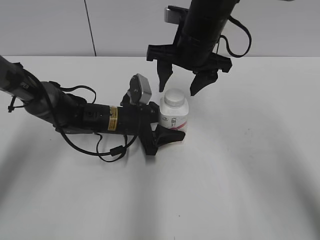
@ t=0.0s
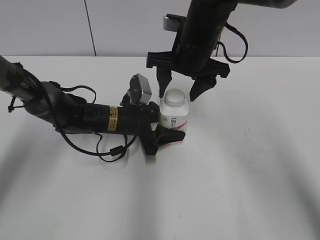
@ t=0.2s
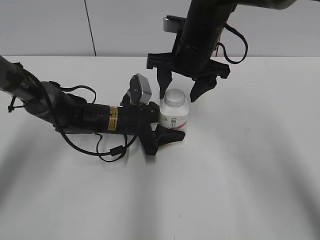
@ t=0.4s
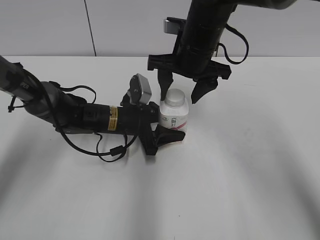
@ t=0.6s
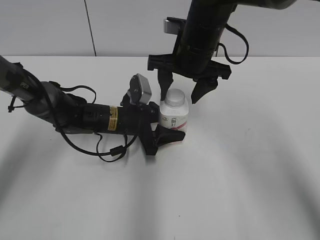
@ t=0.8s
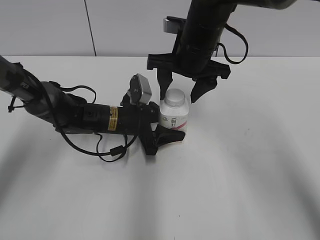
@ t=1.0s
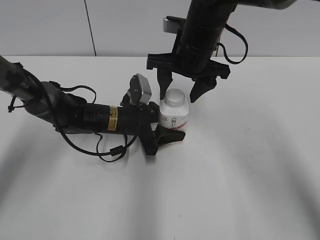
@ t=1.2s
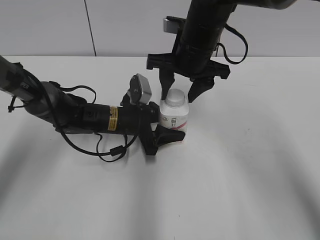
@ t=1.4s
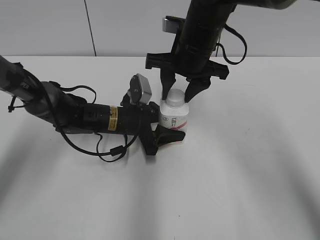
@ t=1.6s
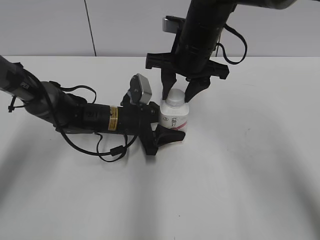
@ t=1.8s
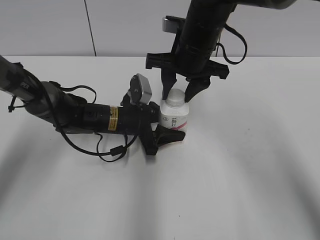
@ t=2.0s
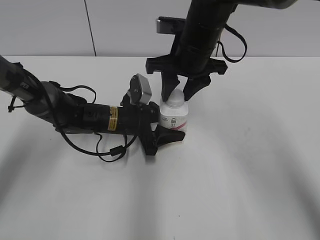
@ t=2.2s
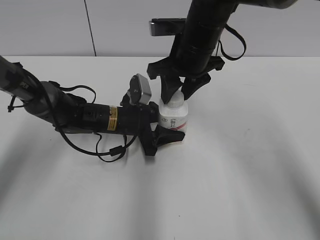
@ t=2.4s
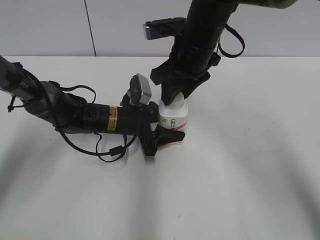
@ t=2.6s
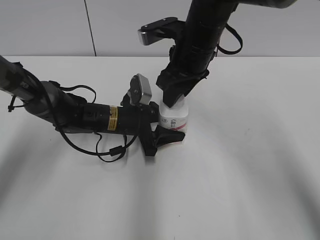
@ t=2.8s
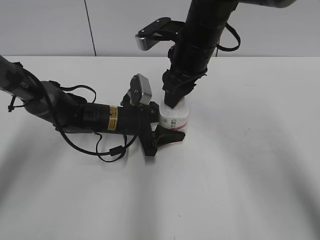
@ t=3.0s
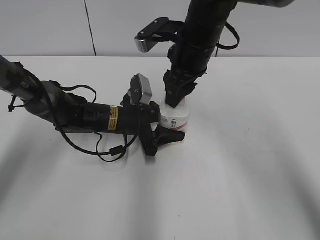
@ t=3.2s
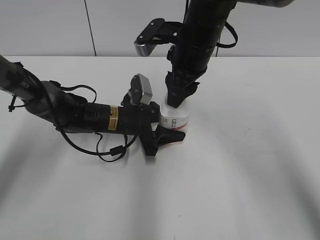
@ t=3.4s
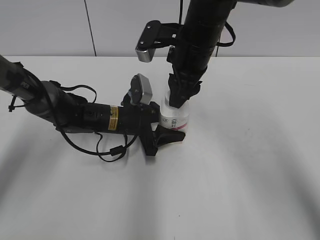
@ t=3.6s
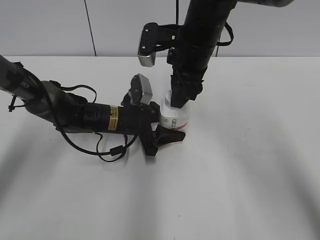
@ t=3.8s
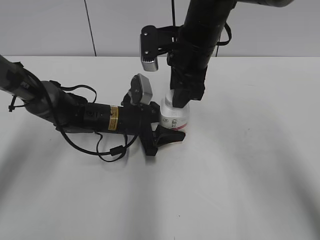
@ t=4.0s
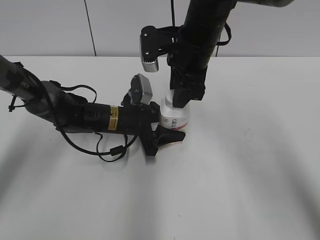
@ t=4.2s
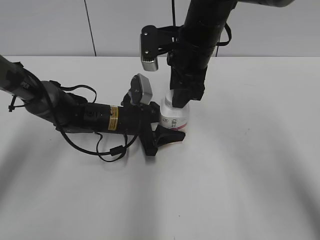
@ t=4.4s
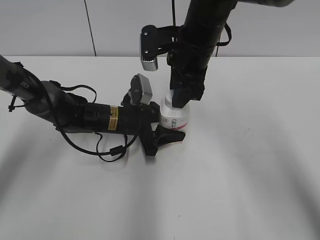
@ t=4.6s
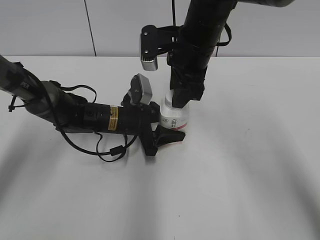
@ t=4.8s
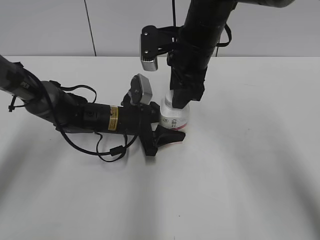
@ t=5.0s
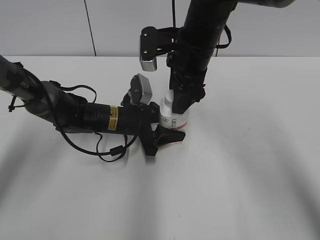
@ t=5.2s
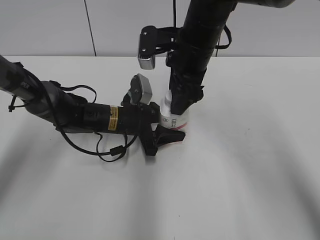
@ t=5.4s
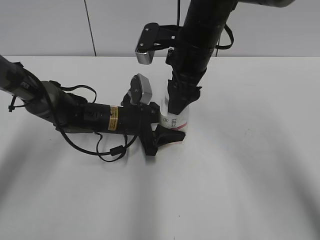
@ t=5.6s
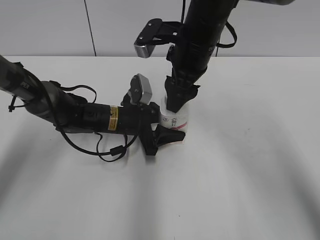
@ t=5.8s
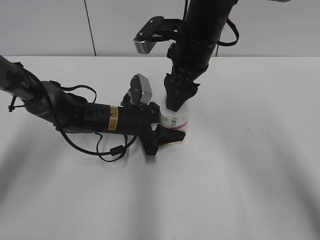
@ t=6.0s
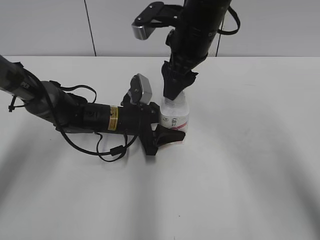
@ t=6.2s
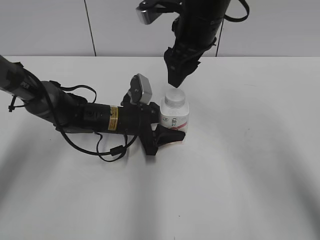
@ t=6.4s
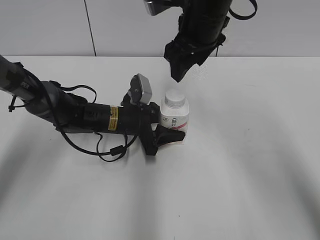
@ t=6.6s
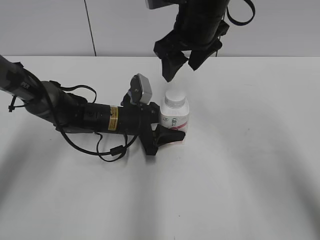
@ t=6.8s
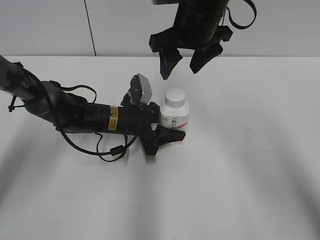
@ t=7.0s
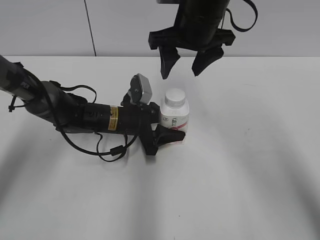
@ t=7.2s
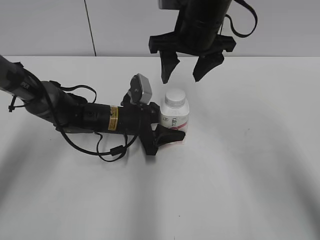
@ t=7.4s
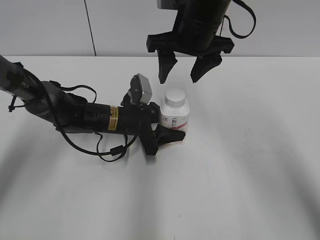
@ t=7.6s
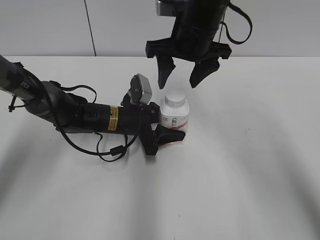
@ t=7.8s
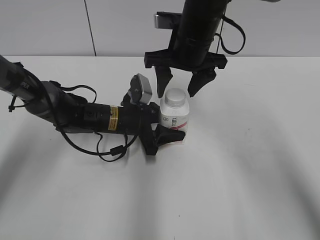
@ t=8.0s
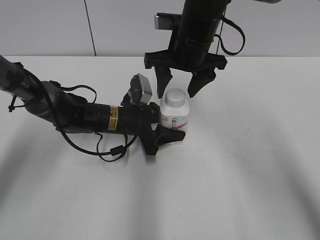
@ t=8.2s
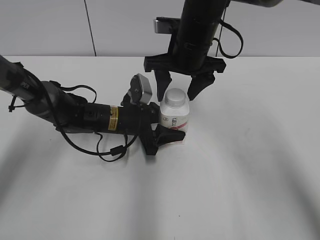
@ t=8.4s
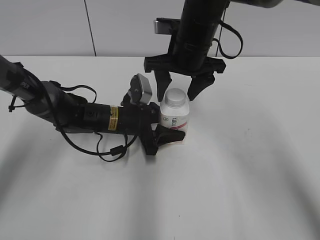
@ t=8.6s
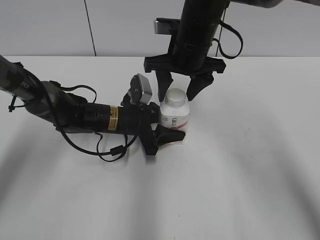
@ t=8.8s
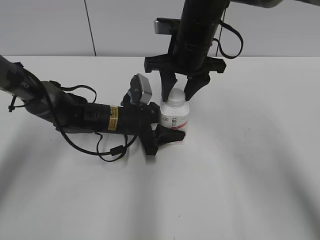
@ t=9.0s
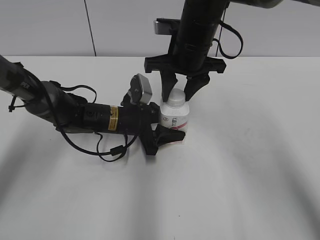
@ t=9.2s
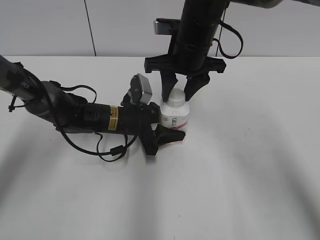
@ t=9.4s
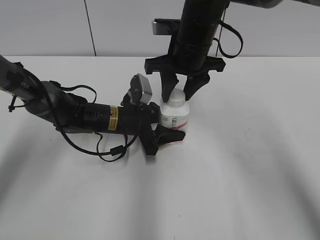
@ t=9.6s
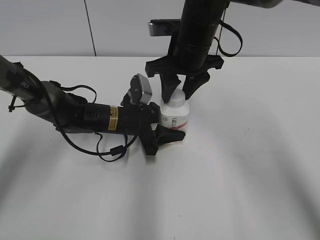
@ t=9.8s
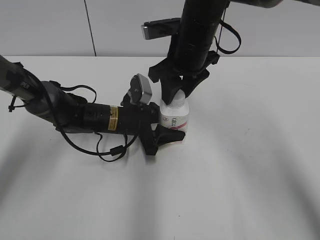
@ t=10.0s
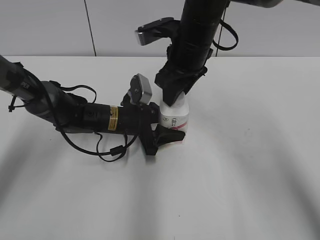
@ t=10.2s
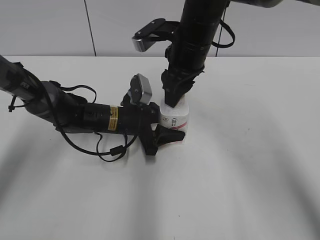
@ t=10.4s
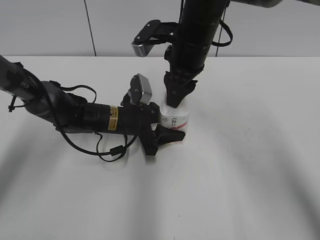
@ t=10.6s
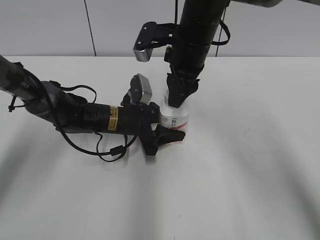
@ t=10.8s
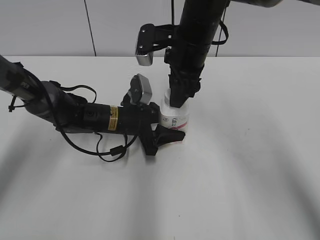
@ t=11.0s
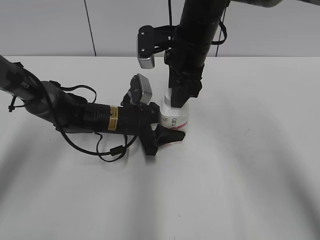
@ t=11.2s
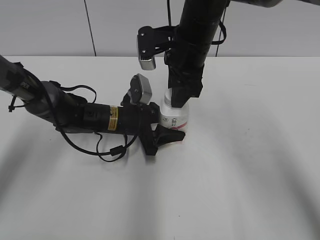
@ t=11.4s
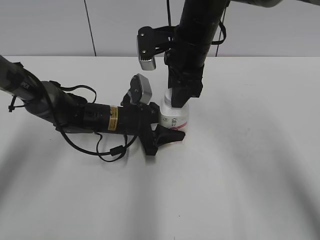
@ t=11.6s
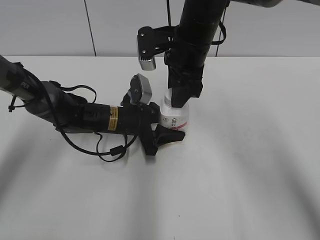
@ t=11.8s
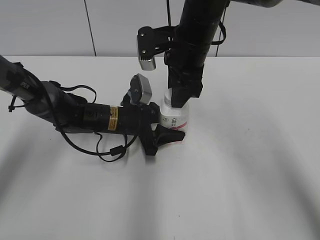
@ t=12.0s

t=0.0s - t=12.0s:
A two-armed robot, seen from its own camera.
t=0.0s - t=1.6s: The right gripper closes its fingers.
t=4.4s - t=6.0s: The right gripper opens its fingers.
t=7.6s - t=9.0s: The right gripper closes.

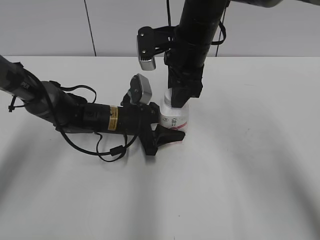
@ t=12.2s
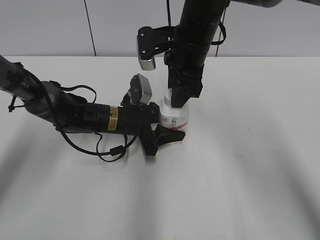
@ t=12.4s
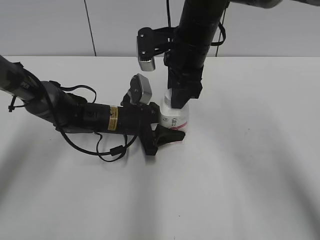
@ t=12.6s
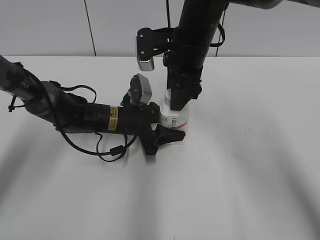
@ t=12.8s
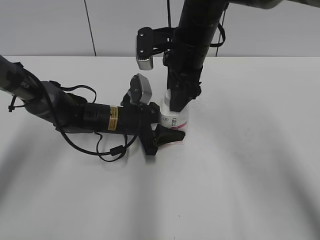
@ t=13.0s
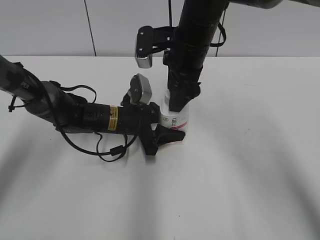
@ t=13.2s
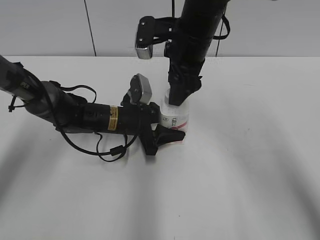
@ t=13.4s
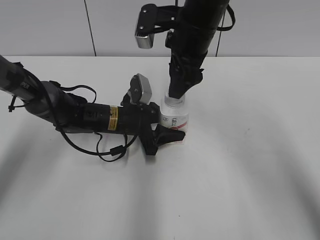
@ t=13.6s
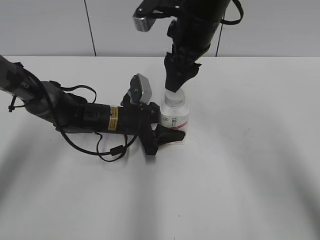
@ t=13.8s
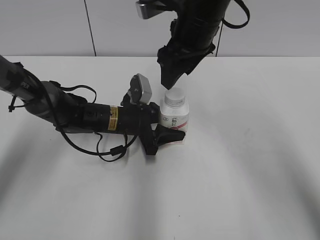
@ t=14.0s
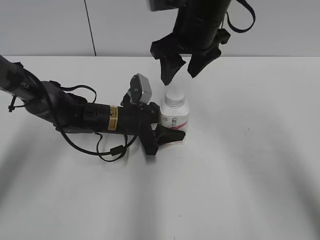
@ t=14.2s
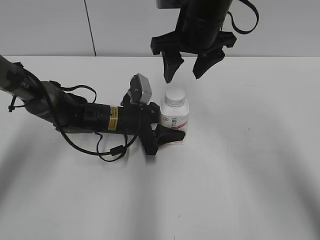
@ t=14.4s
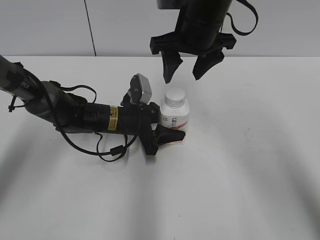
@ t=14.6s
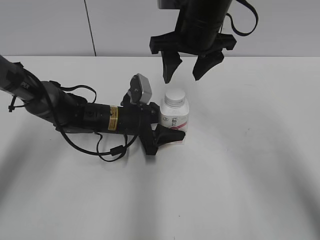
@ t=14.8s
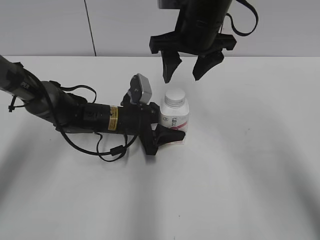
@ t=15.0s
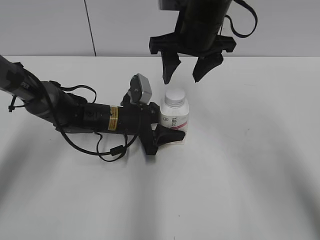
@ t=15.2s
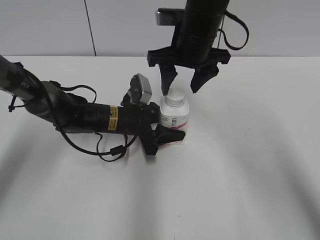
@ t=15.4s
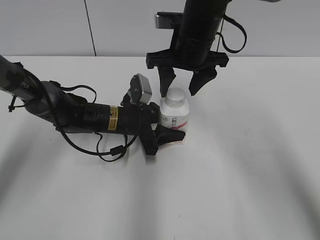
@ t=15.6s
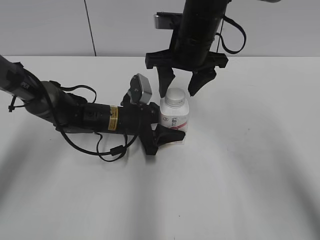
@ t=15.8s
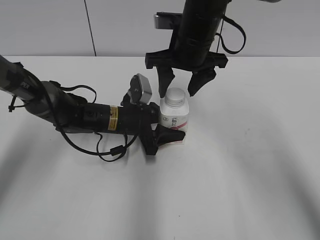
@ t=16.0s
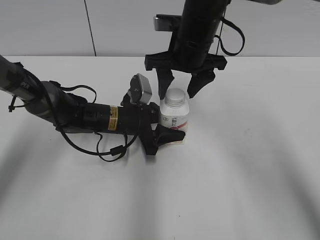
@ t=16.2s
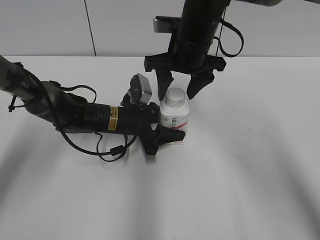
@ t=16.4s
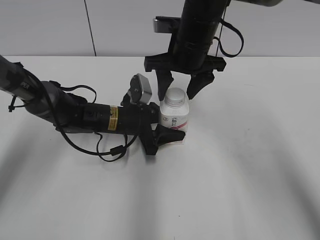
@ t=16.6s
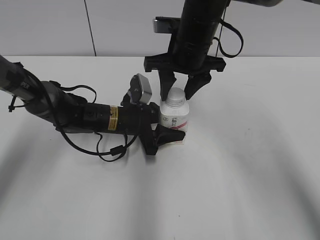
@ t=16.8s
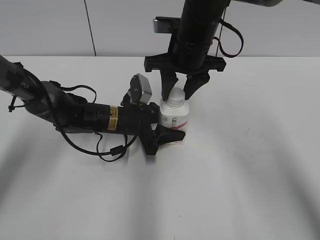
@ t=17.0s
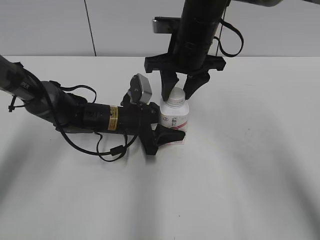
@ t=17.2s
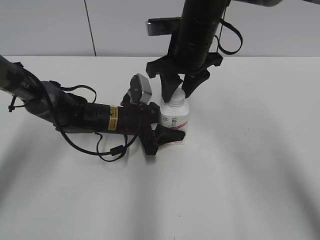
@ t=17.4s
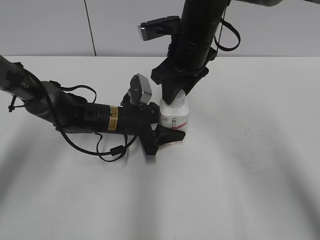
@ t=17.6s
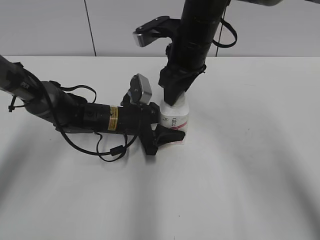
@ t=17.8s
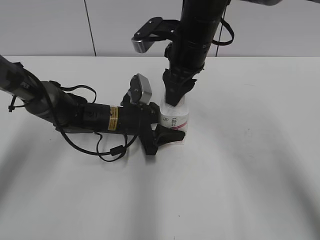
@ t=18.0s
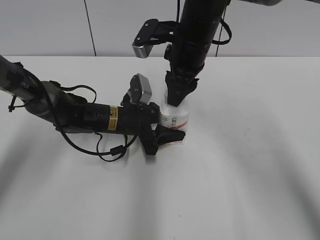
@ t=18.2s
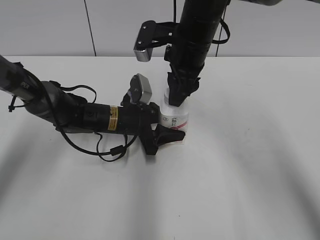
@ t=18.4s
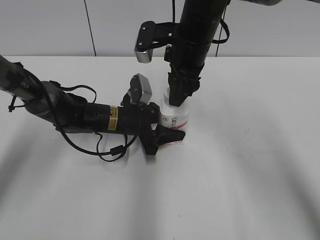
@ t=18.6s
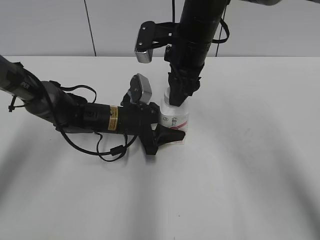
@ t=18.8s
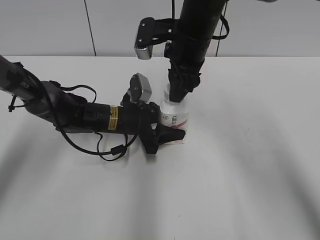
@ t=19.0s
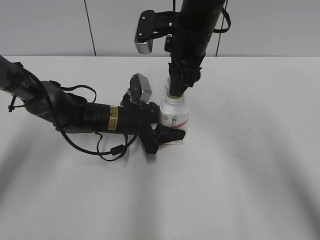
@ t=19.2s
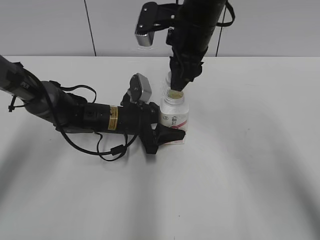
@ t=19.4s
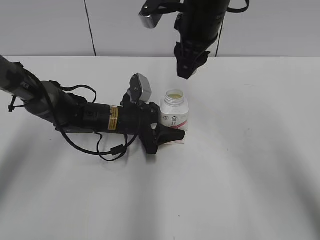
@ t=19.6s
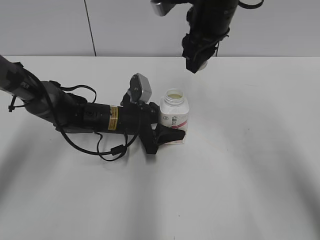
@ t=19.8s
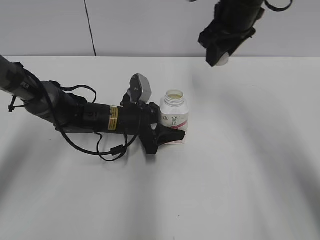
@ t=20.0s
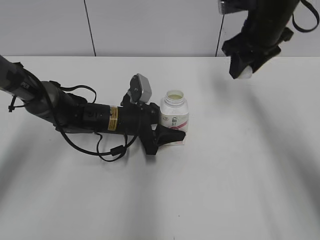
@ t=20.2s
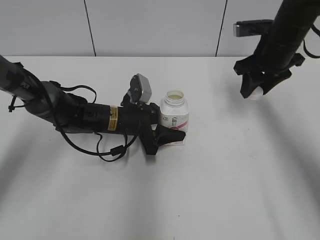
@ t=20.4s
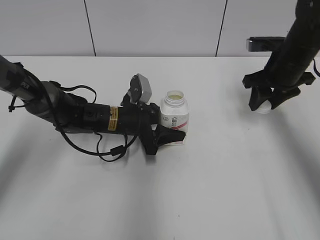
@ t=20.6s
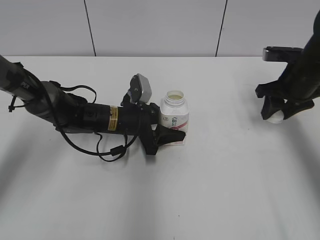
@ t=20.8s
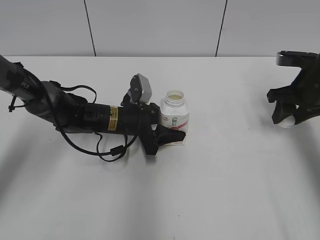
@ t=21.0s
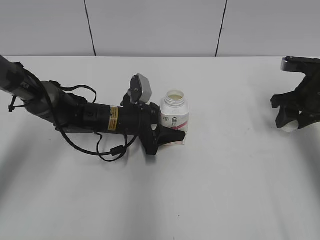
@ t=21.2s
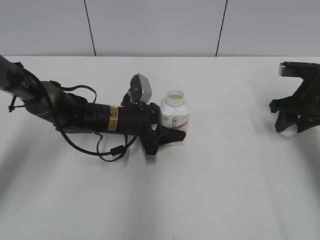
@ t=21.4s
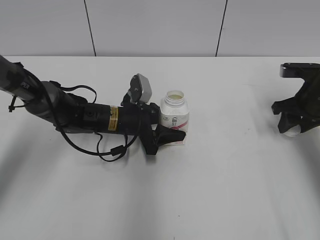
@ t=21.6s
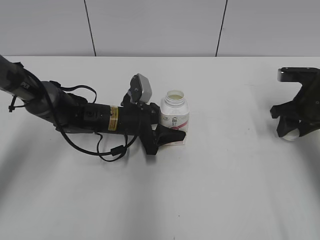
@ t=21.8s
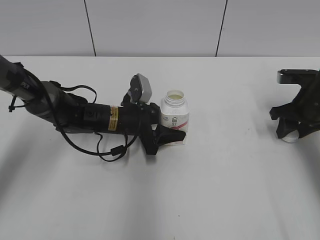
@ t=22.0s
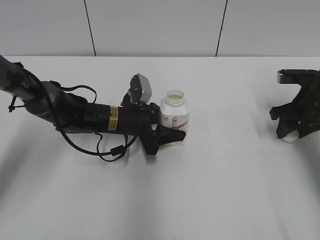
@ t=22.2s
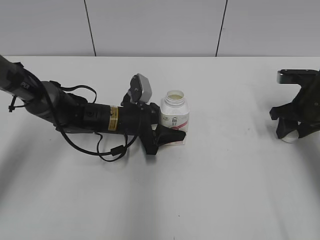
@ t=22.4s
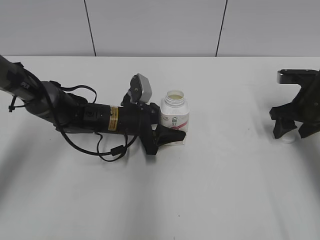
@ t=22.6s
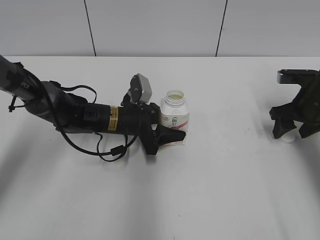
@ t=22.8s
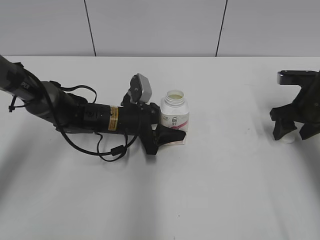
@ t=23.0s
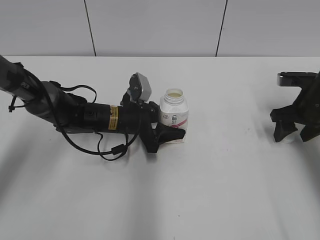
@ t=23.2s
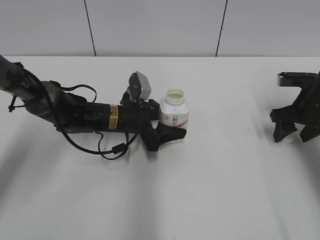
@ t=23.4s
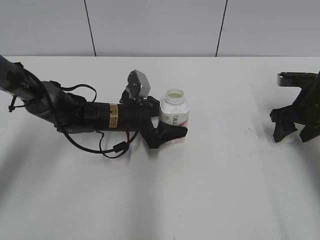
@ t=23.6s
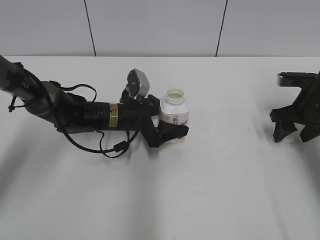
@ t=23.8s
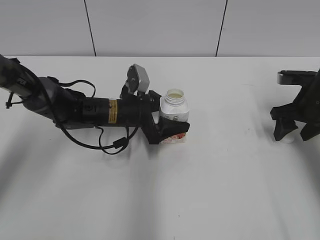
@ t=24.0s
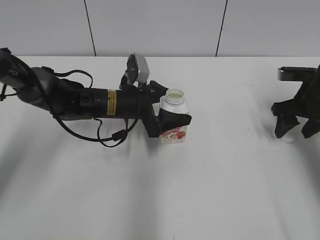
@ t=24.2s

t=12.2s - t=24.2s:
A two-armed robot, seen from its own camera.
Step, t=19.4s - t=22.8s: Place the bottle cap on the right.
Step, t=23.0s - t=24.2s: Place the Yili Changqing with the left hand.
t=12.2s - t=13.8s: The right gripper opens its fingers.
t=15.2s - t=16.6s: There are only small adjustments of the grippers.
t=16.6s - t=18.2s: The right gripper closes up.
t=18.2s - t=19.8s: The right gripper shifts some 5 cm upward.
t=19.8s - t=21.2s: The right gripper moves to the right and downward, approximately 25 cm.
t=21.2s - t=22.6s: The right gripper opens its fingers.
t=22.6s - t=24.2s: The left gripper opens its fingers.
